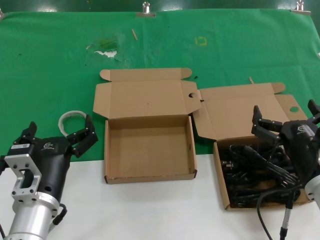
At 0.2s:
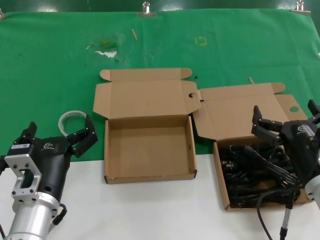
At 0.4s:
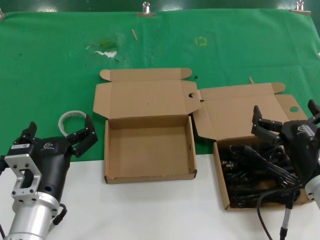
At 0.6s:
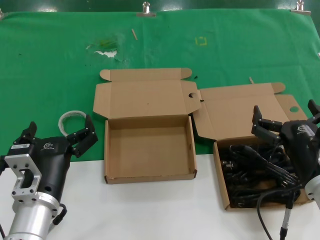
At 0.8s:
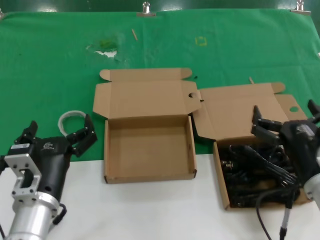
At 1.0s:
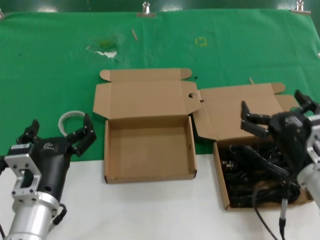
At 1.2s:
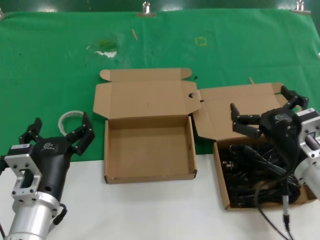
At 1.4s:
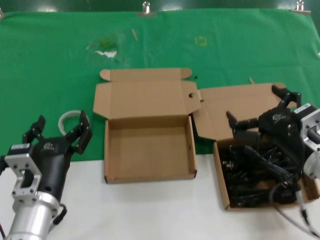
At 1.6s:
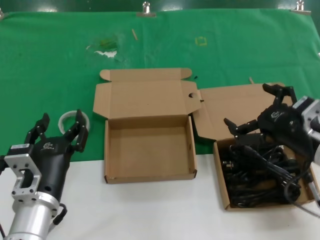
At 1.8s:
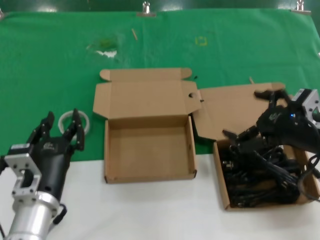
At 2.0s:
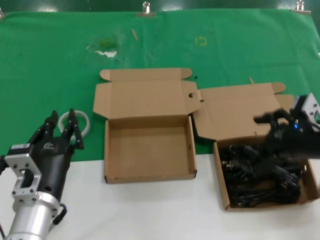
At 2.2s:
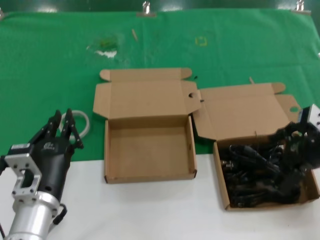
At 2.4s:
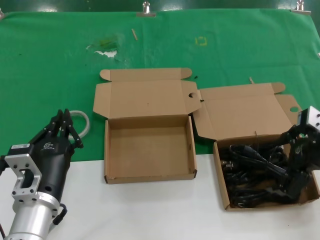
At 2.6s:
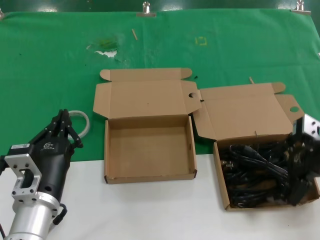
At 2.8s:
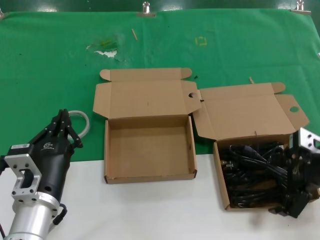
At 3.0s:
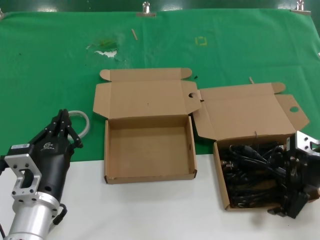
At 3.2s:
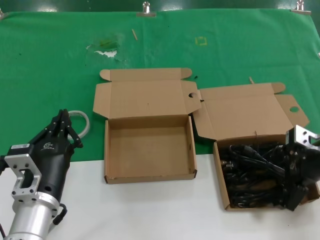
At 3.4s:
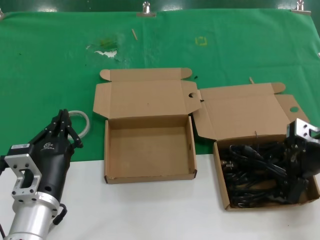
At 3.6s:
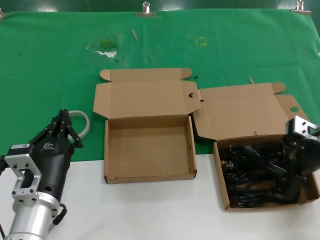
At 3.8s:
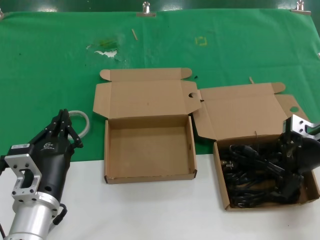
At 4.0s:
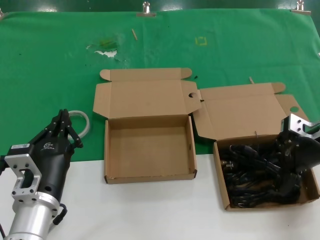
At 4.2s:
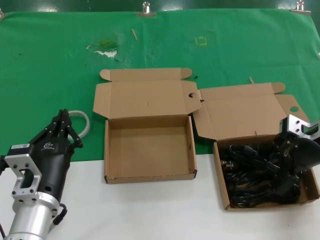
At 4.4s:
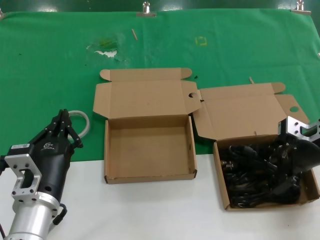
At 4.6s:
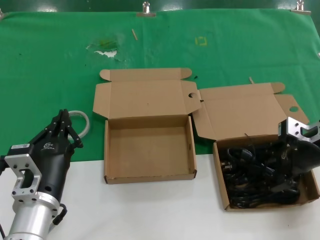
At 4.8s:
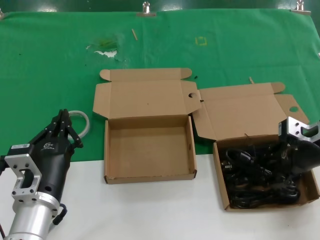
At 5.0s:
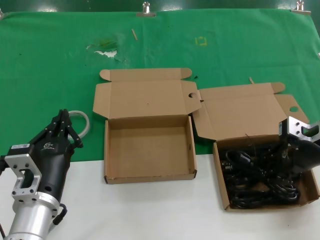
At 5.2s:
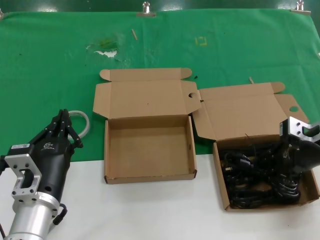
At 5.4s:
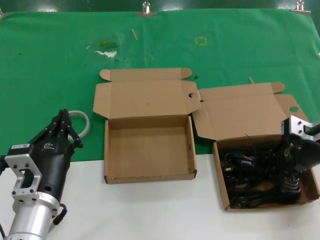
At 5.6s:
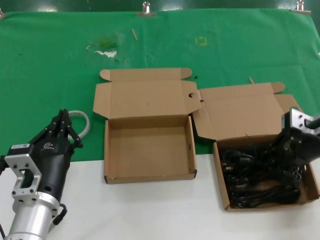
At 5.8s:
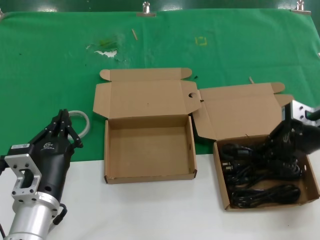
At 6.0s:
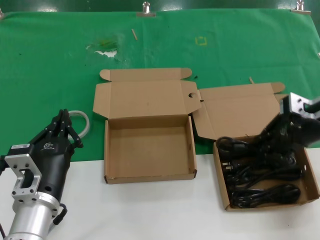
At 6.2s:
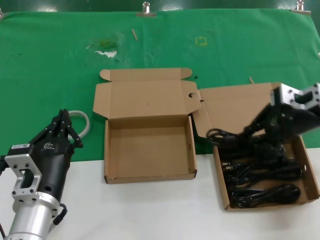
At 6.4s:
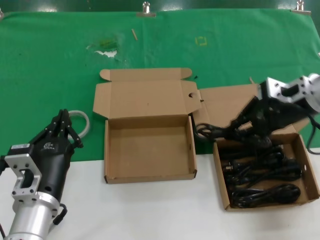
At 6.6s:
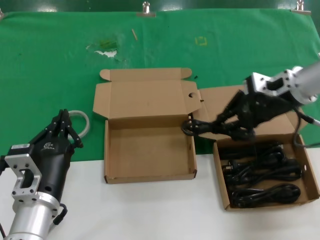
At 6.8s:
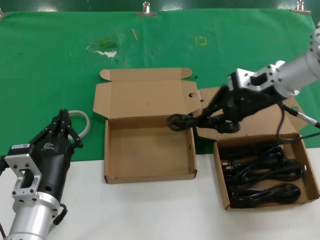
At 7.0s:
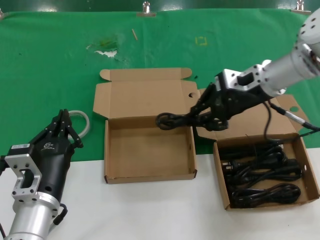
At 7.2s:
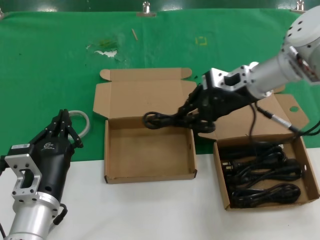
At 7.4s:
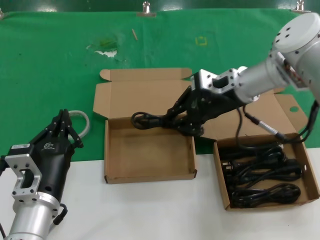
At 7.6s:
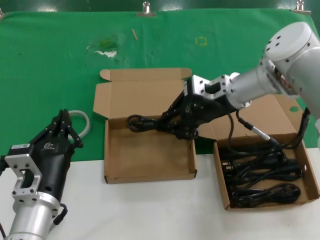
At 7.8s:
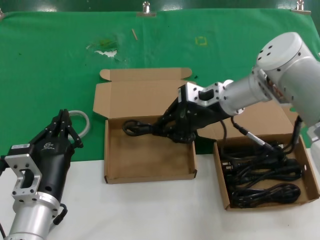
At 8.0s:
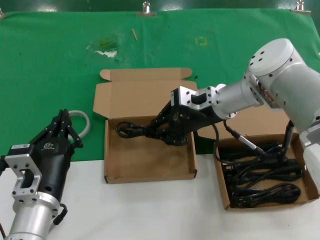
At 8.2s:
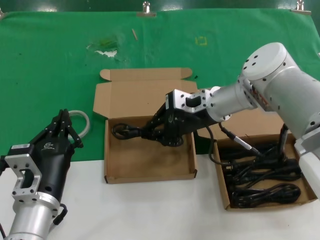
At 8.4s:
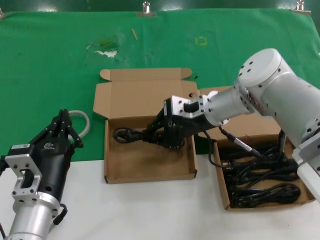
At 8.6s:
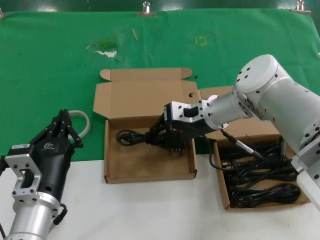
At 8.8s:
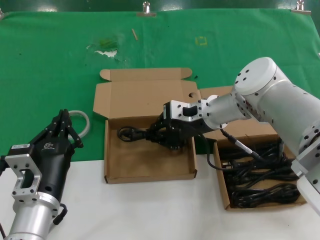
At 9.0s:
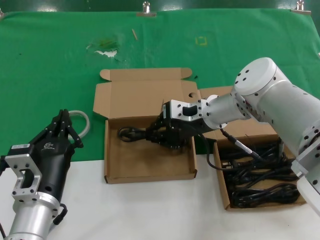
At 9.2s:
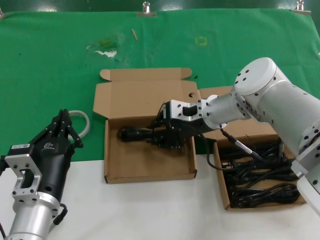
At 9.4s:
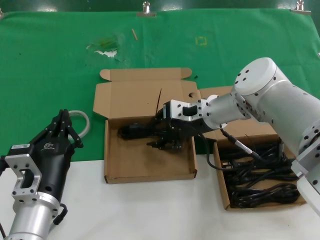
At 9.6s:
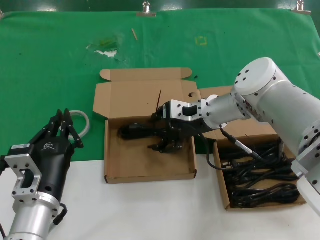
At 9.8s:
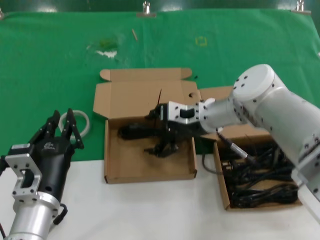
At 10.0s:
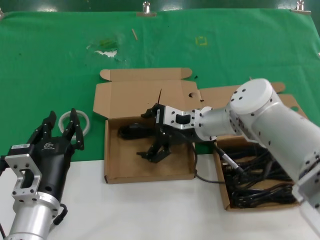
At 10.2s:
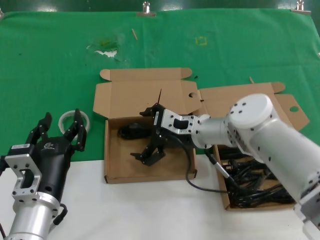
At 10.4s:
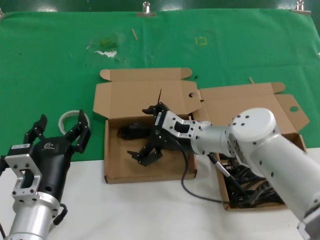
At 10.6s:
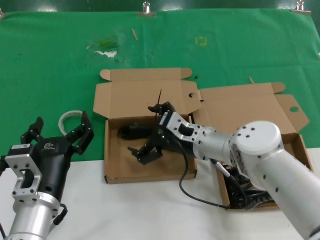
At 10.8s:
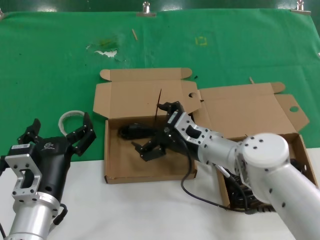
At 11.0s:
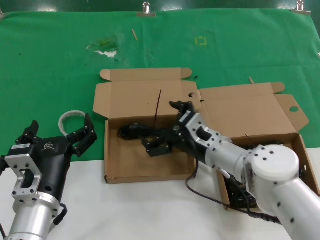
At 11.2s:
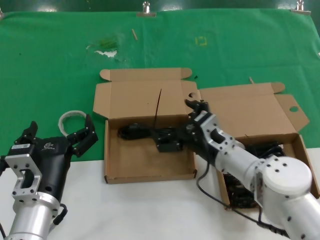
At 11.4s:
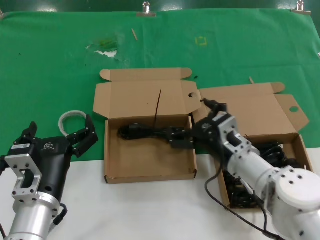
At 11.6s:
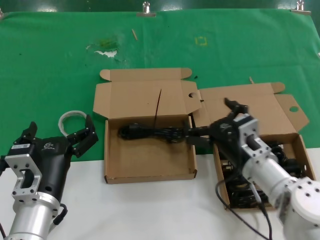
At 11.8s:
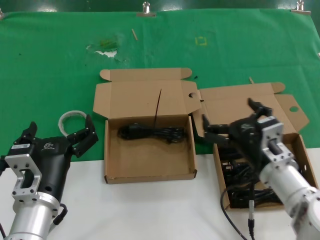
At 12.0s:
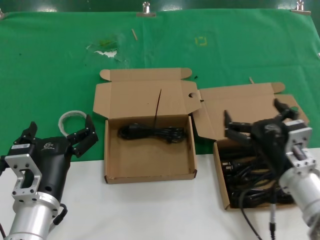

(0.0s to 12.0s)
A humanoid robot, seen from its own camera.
Task of the whole recording: take the parts from the box containing them and put them into an empty box.
Step, 0.0s - 5.2s: Grasp the data cable.
Step, 5.4s - 9.4s: Place the data cable in the another box.
0.0s - 1.6s: The right hand shifts approximately 10 cm forward and upward.
1.6s - 3.0s: The right hand moves approximately 10 cm.
3.0s - 4.4s: The hands stay close to where they were, moving slightly.
4.4s - 6.0s: The right hand travels upward by about 5 cm.
6.0s - 7.6s: The right hand is displaced to the left and forward by about 20 cm.
7.6s - 9.0s: The right hand shifts roughly 5 cm downward.
9.0s - 10.4s: The right hand moves downward, approximately 5 cm.
10.4s - 12.0s: The right hand shifts about 20 cm backward and to the right.

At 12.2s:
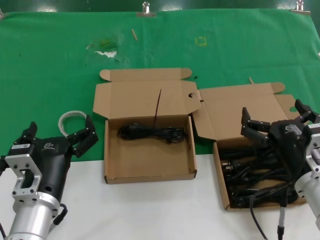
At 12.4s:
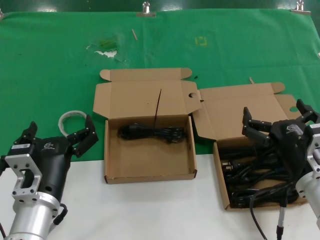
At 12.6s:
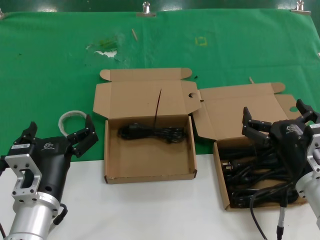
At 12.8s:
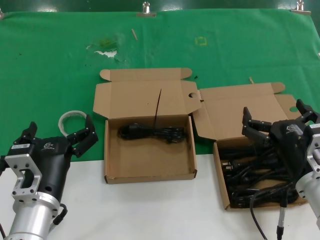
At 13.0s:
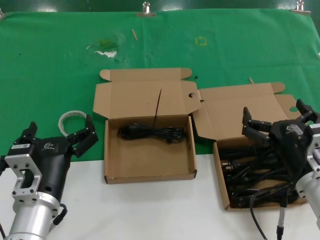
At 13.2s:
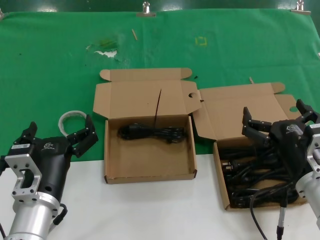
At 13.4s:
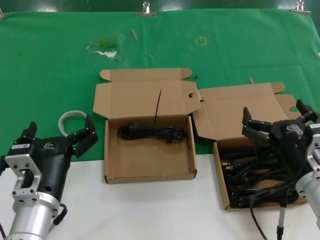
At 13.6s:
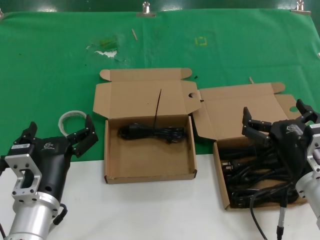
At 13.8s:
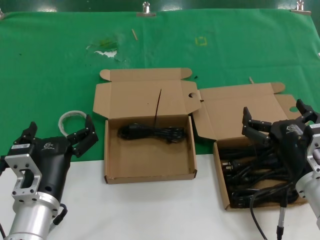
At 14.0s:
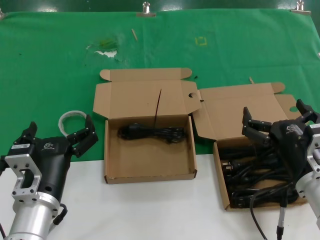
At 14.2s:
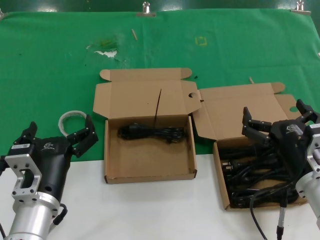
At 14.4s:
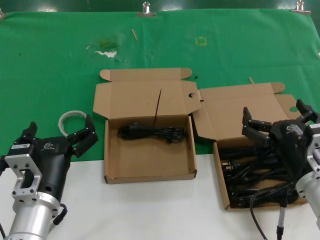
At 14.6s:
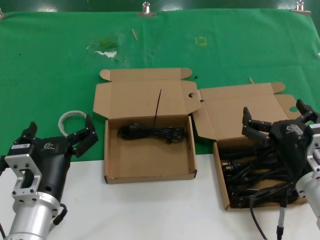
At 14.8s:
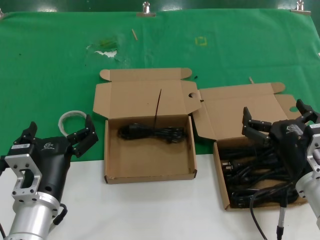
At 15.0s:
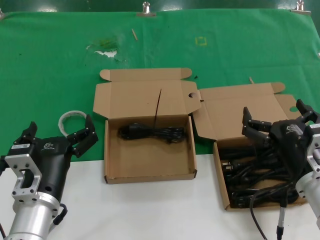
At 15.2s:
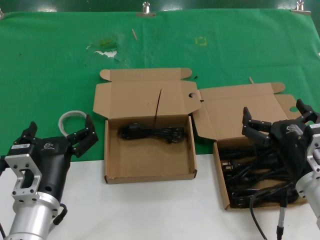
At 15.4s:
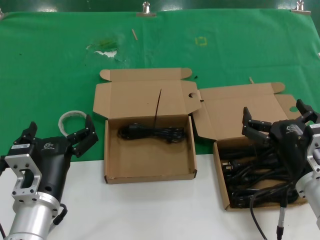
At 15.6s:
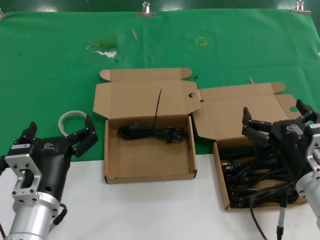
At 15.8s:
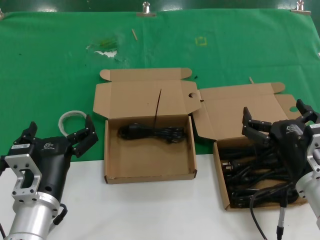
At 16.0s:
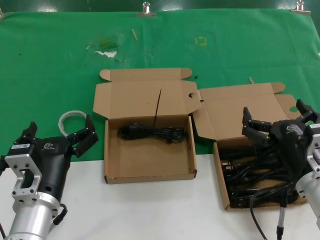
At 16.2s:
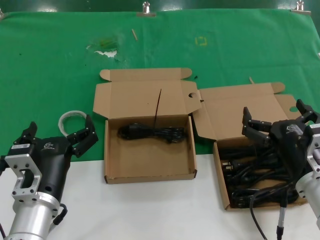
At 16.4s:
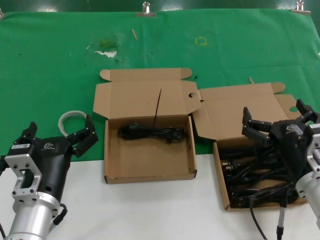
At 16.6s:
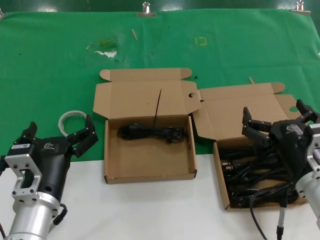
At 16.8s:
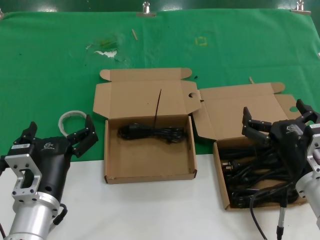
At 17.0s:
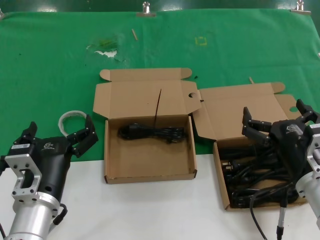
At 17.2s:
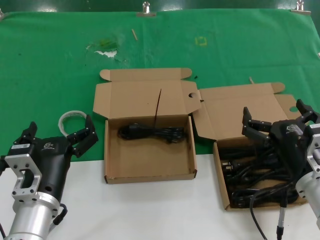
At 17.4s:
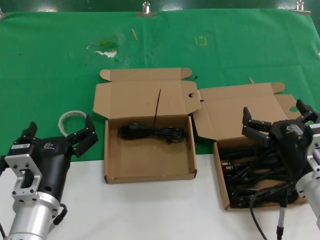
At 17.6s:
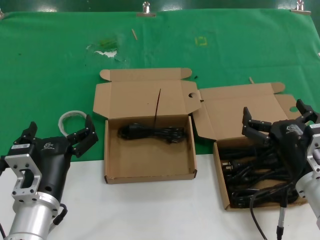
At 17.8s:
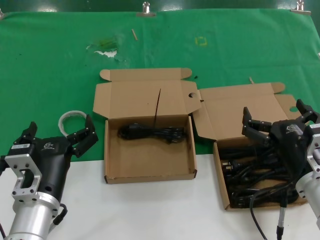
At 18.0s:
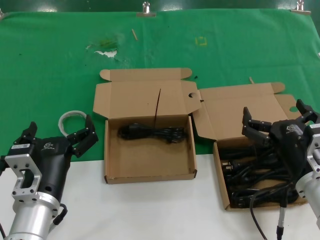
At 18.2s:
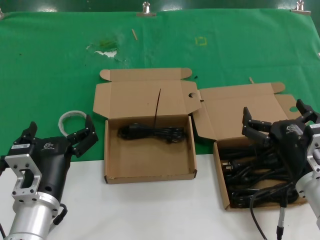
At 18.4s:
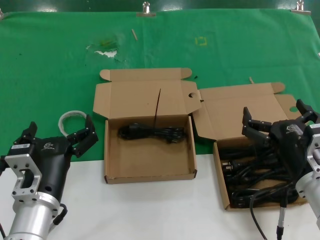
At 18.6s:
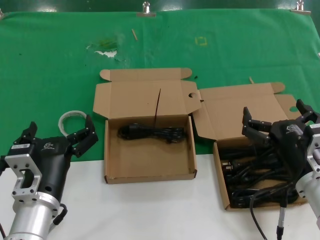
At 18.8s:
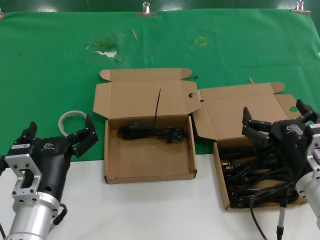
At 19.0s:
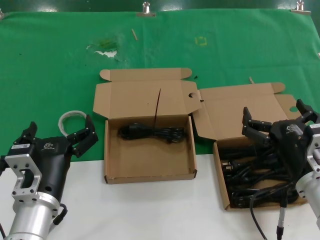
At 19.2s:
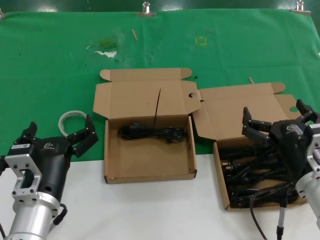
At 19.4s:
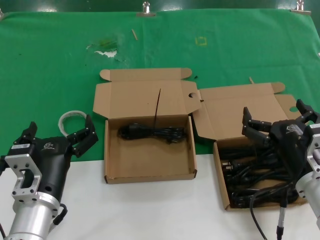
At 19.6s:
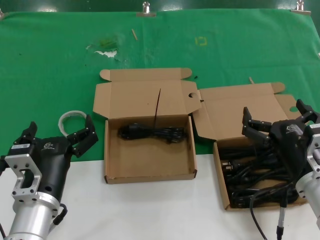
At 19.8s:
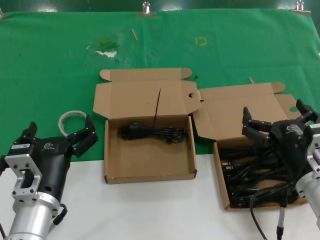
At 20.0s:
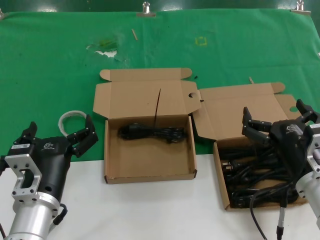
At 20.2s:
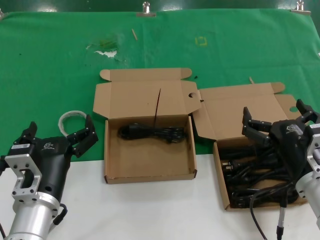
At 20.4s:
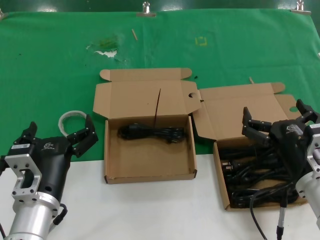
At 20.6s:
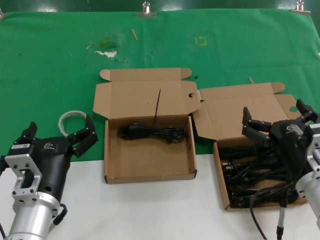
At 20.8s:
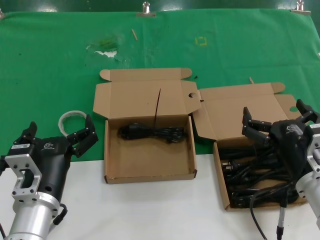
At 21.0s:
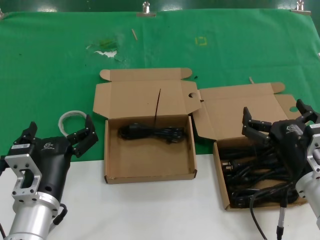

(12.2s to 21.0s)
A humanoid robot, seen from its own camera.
Task of the whole recording: take the parts from the box containing them and put them into an empty box.
12.2s - 21.0s: Both hands stay put.

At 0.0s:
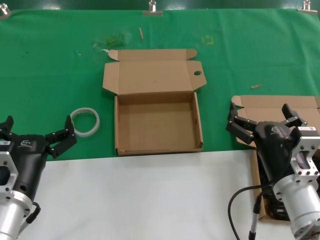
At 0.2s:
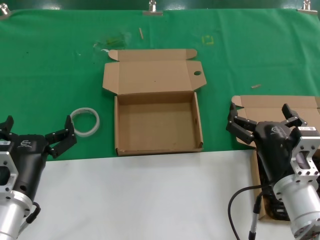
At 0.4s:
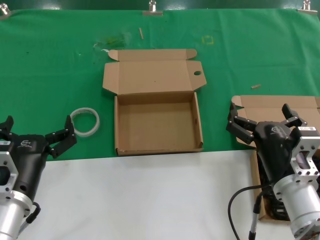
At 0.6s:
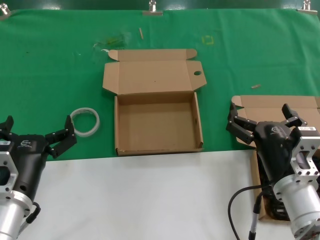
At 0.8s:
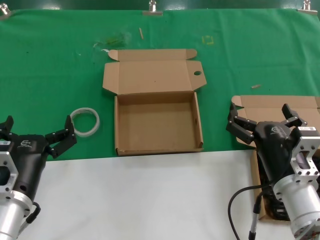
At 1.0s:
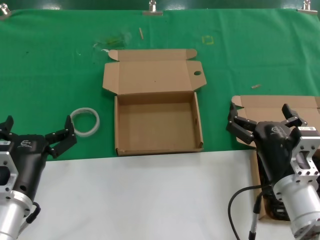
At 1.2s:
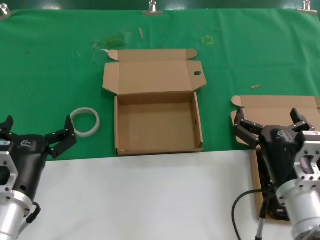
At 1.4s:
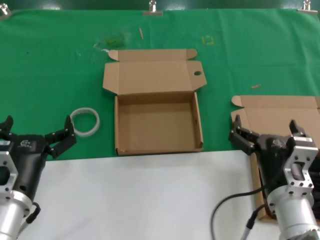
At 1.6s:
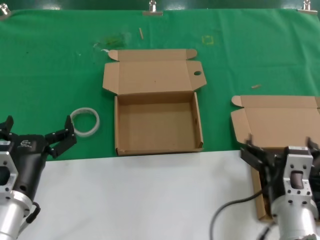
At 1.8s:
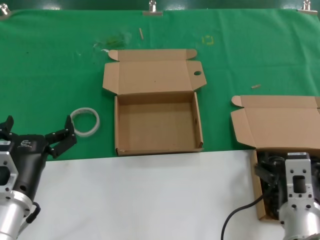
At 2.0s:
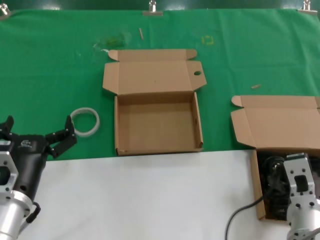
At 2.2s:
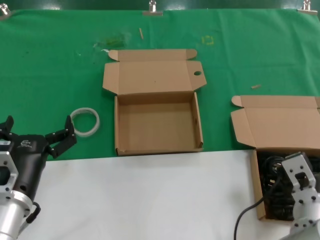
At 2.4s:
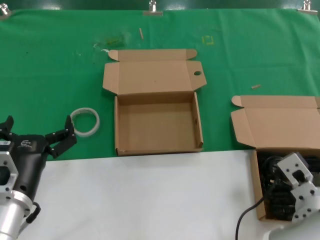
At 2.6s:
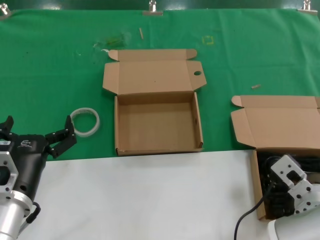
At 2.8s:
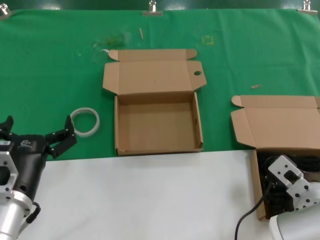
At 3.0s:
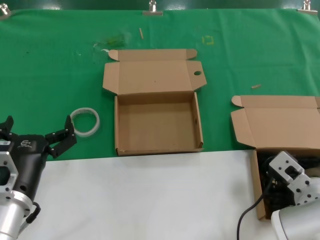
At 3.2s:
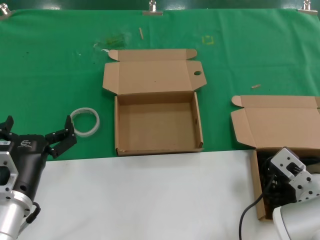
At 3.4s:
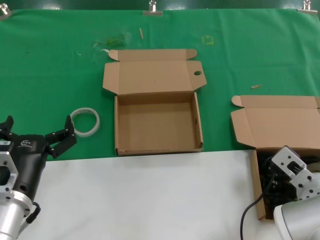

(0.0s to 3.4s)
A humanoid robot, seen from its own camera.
Task of the whole recording: take the parts from the box containing them and put them into an empty box.
0.0s - 1.6s: The hands make only small movements.
1.6s - 3.4s: The right hand heads forward and to the right, covering roughly 10 cm.
